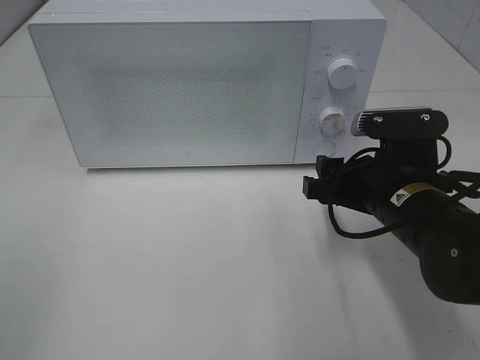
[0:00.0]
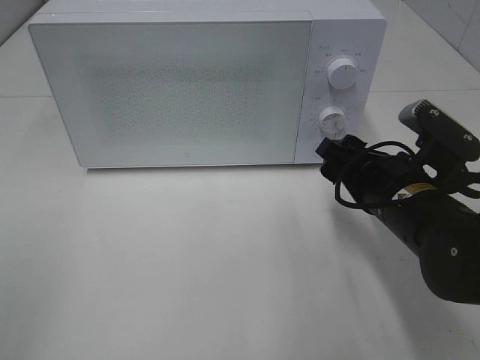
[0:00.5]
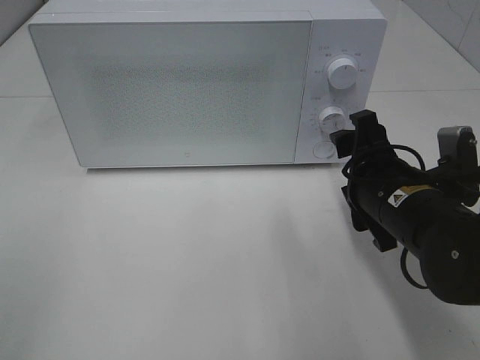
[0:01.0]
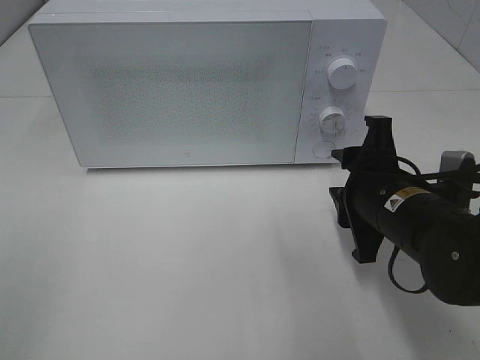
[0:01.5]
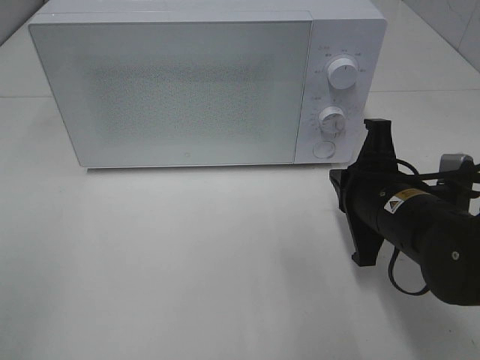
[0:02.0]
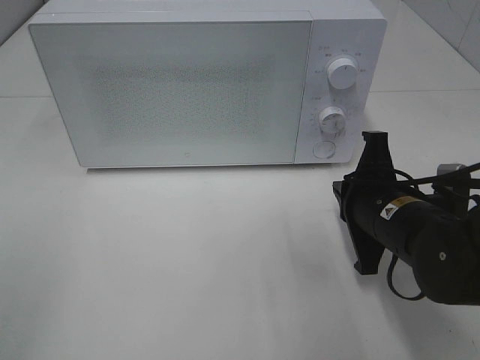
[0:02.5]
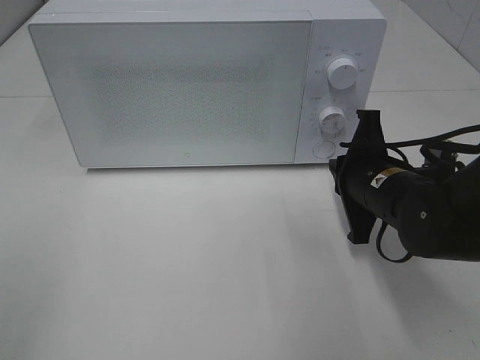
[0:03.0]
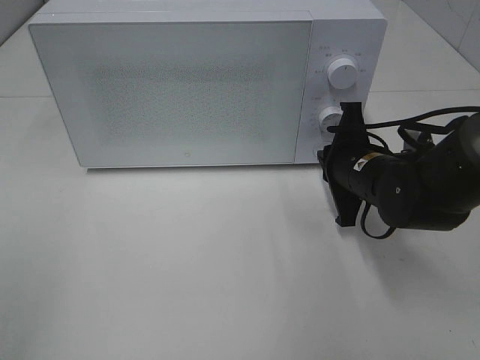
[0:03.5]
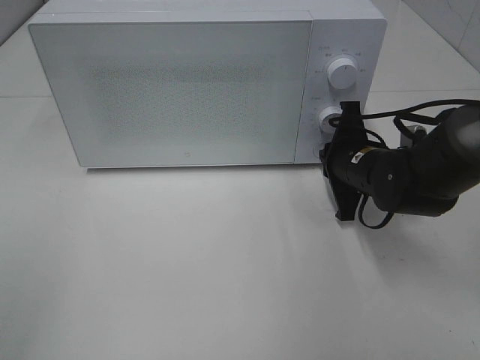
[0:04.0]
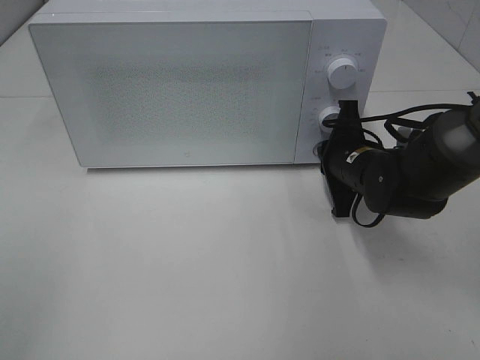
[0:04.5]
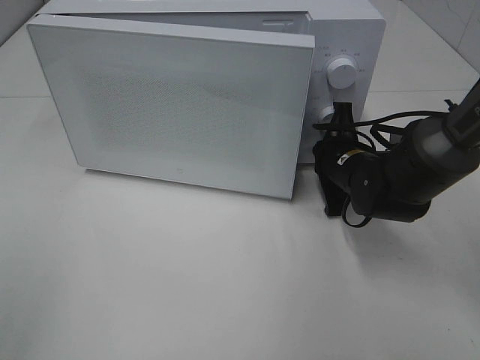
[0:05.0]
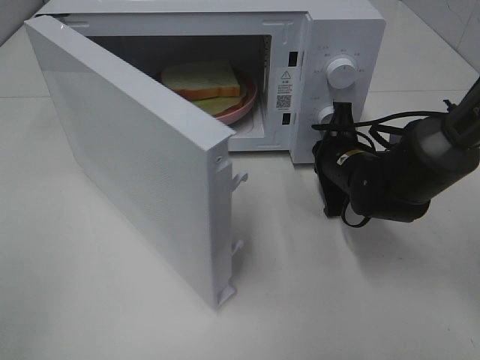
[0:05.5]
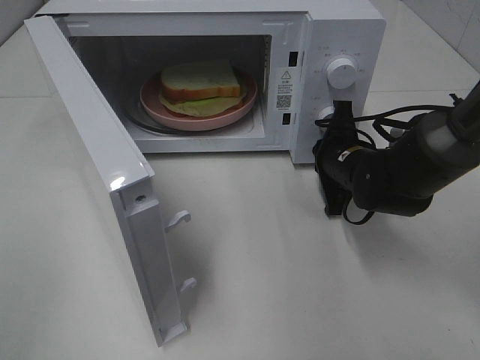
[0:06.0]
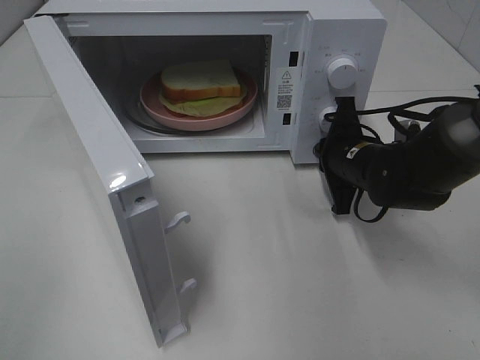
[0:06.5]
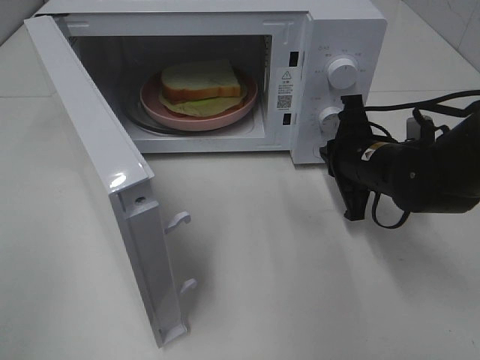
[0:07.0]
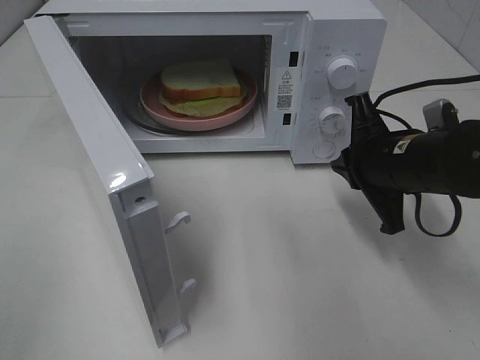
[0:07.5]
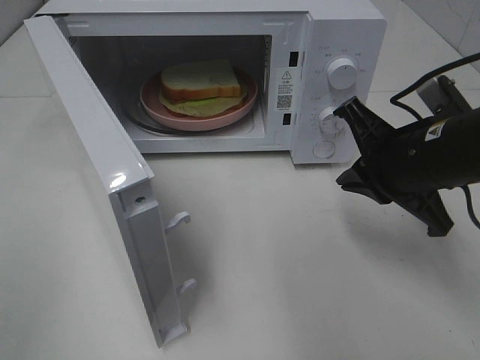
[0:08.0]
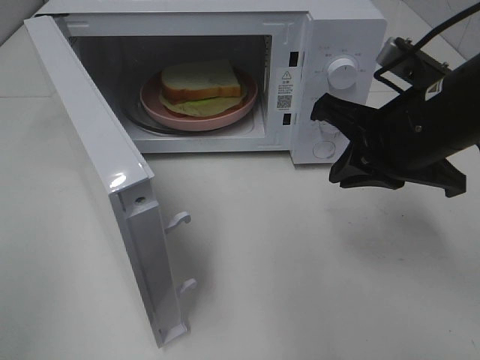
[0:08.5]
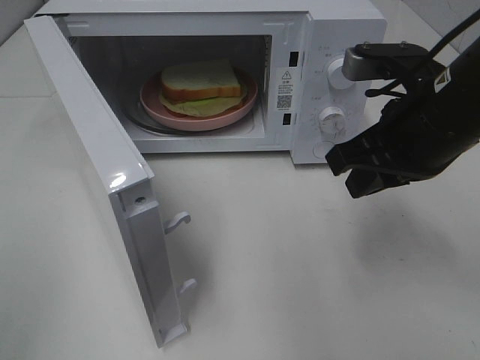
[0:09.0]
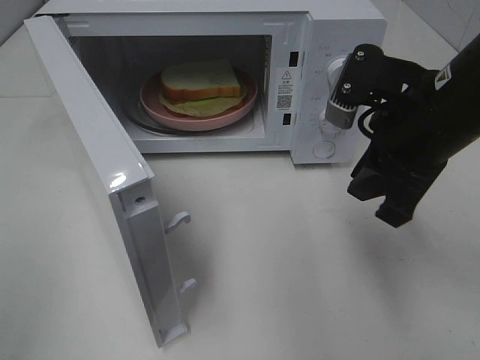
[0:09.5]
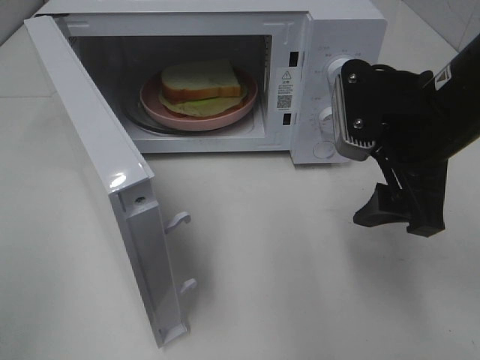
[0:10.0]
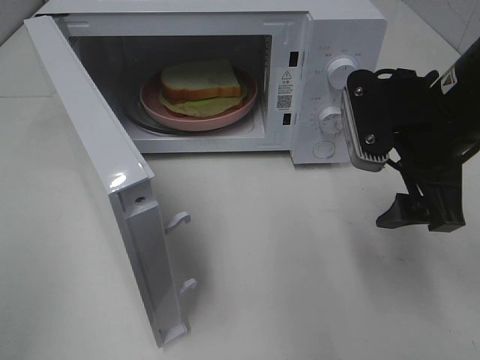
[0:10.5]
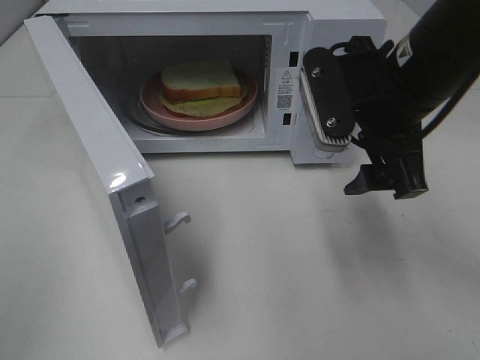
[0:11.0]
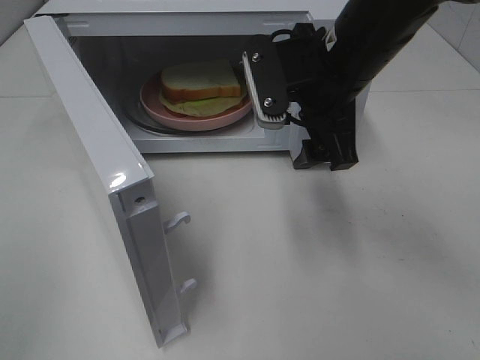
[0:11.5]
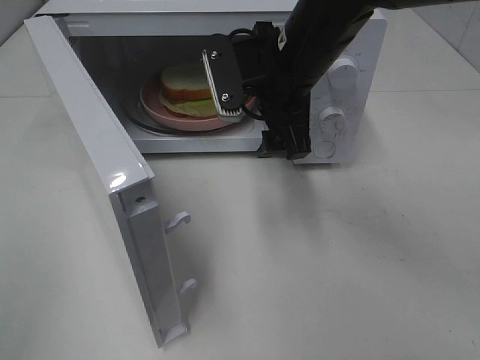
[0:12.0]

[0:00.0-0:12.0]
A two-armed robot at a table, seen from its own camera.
Task of the whole recording: Heat Sandwich.
Step, 0:00.0 to 0:07.0: Right hand: press the switch.
0:00.0 to 0:02.0: The right gripper closes.
0:02.0 to 0:04.0: The right gripper goes about 10 cm forward.
0:06.0 to 0:08.0: The right gripper is displaced backward and upward by roughly 15 cm.
0:08.0 to 0:10.0: The right gripper opens.
0:10.0 to 0:12.0: The right gripper moves to the left and forward, some 15 cm.

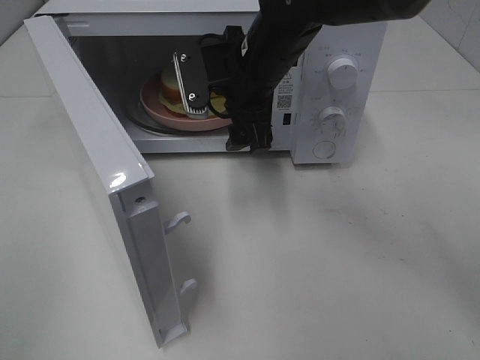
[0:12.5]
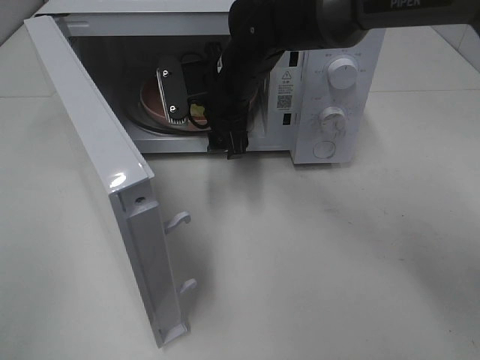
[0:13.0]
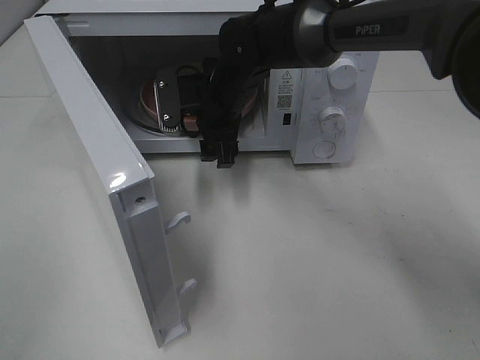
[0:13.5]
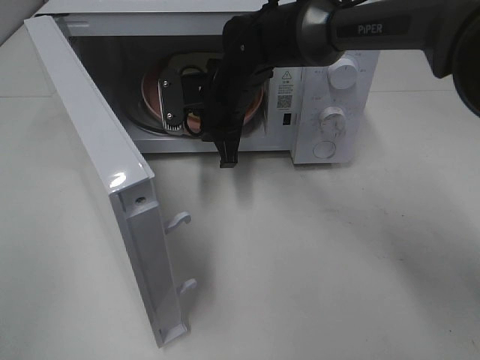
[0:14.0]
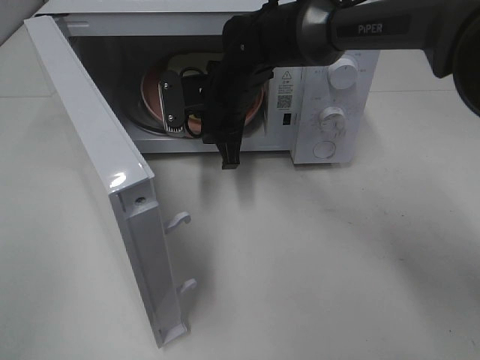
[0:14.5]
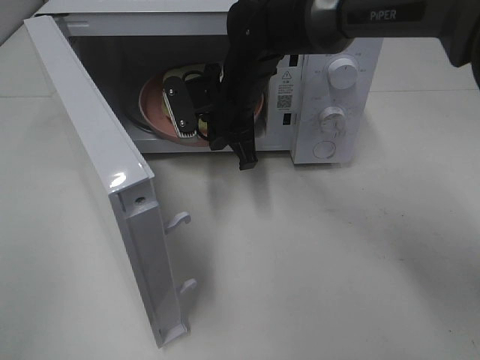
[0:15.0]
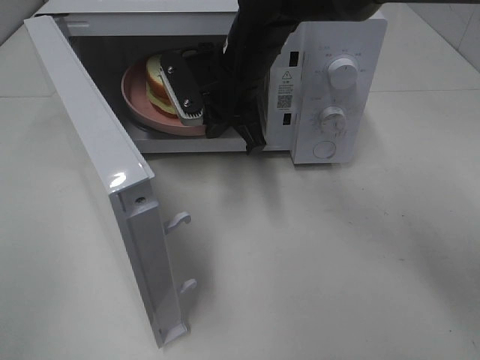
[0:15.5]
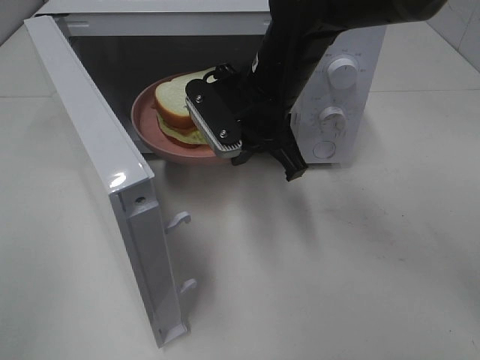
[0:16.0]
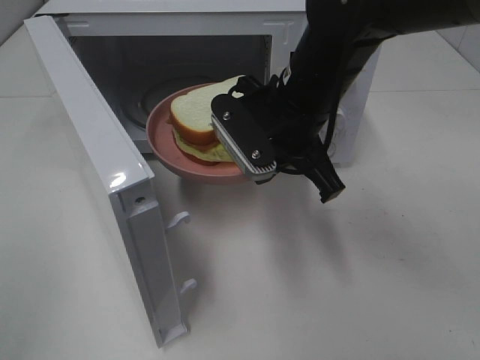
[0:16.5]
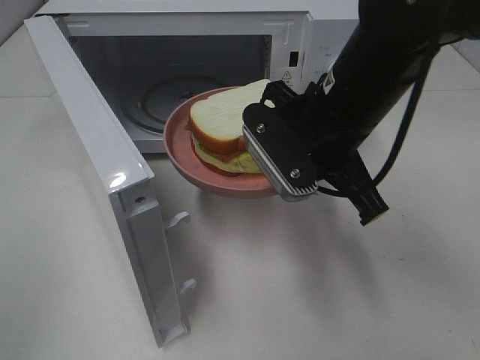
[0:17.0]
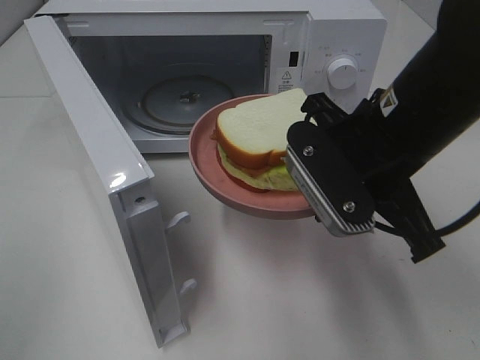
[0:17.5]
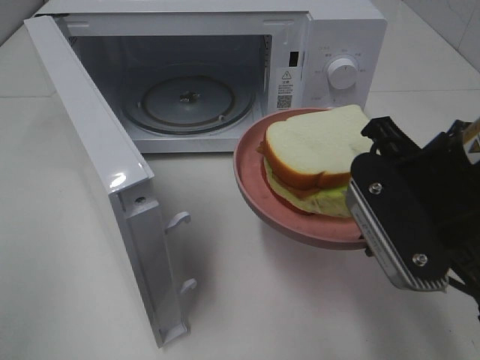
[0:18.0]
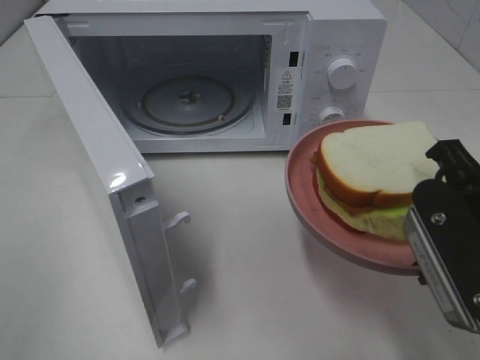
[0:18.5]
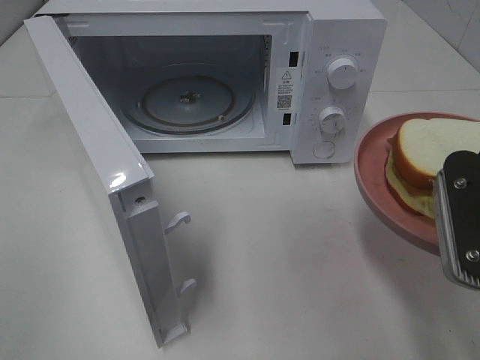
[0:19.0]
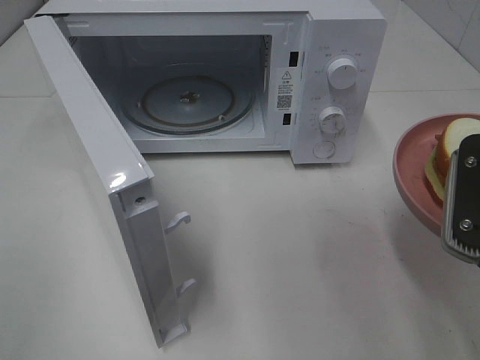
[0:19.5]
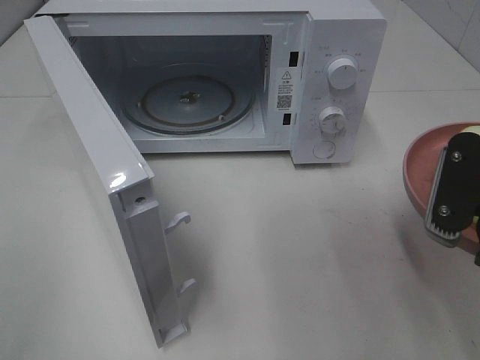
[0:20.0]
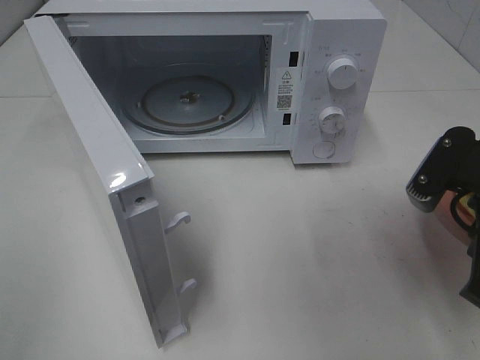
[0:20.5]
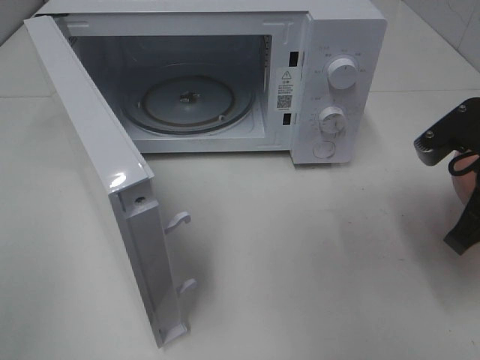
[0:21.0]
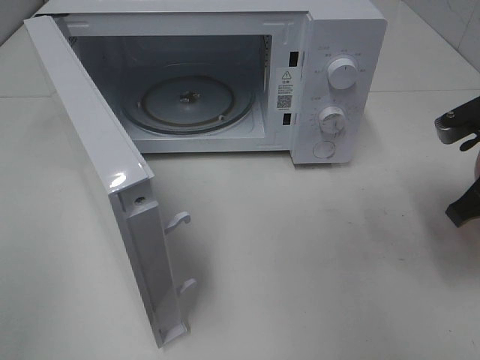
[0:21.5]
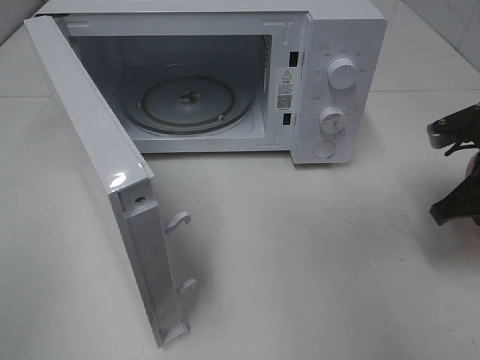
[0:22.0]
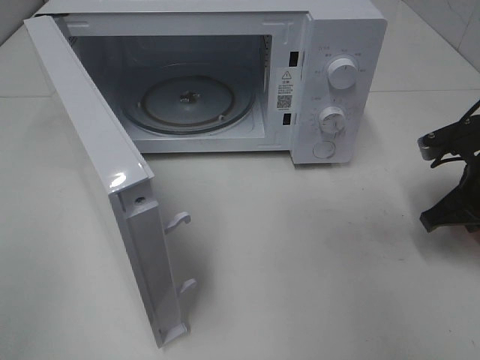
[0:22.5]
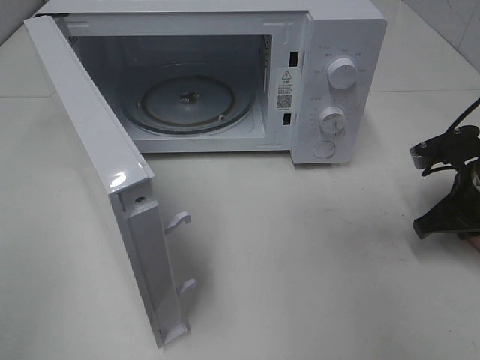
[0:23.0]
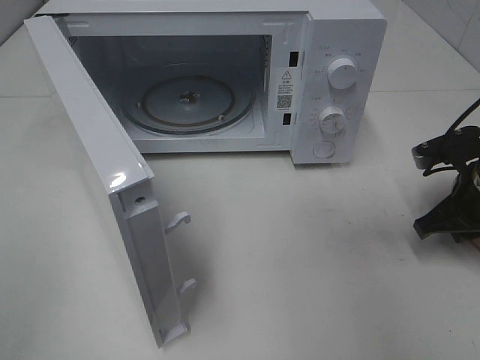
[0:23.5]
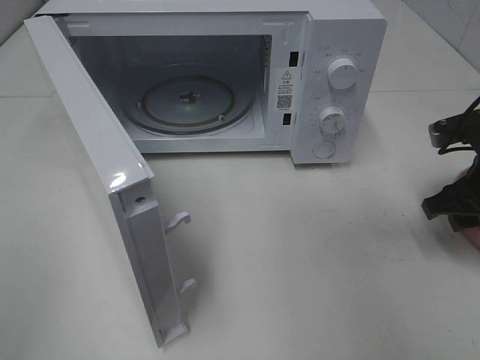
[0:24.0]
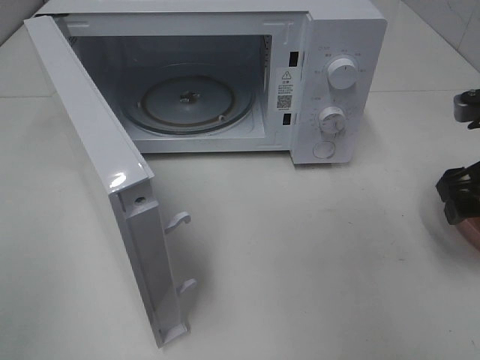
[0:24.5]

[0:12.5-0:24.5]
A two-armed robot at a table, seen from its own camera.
Task of the whole recording: Heat Sandwich.
Step, 0:14.0 to 0:24.5: Right hand: place the plate on the table.
0:12.5 to 0:14.5: The right gripper heads downward, covering about 5 cm, and closes.
0:14.5 to 0:16.5: The right gripper heads backward, to the right and upward, covering approximately 15 cm.
0:16.5 to 0:18.5: The right gripper moves backward and to the right, roughly 20 cm.
0:18.5 to 0:20.5: The right gripper changes place by approximately 5 cm.
0:20.5 to 0:22.5: The right gripper travels forward, downward and to the right by roughly 15 cm.
0:22.5 to 0:24.5: The right gripper heads upward, covering approximately 5 cm, and opens up.

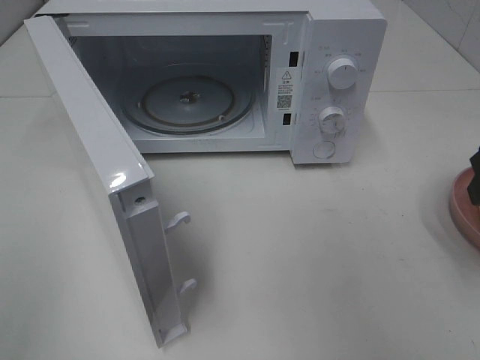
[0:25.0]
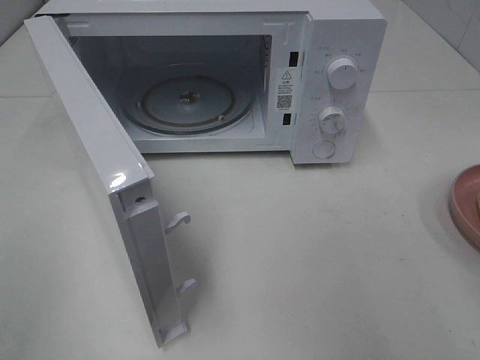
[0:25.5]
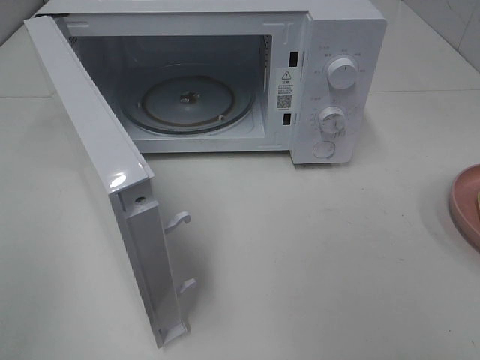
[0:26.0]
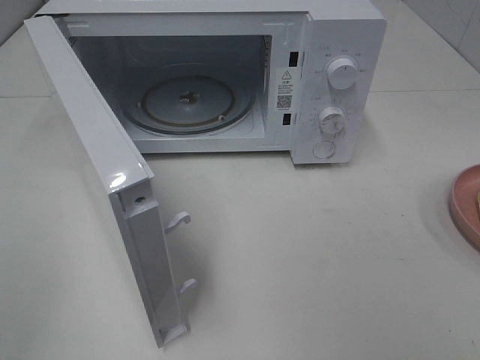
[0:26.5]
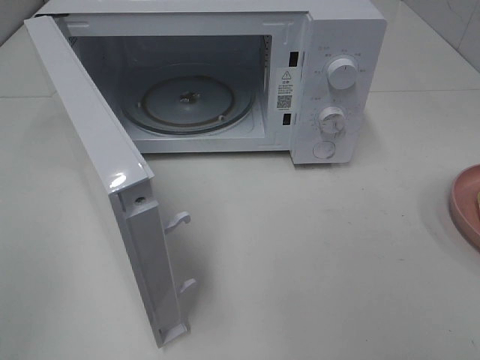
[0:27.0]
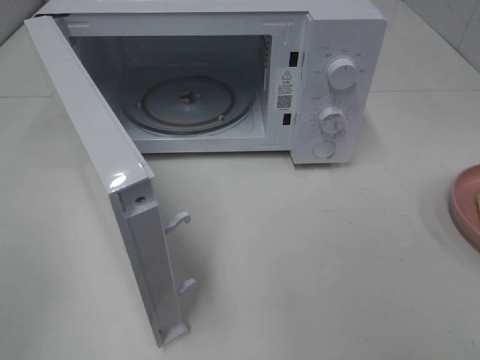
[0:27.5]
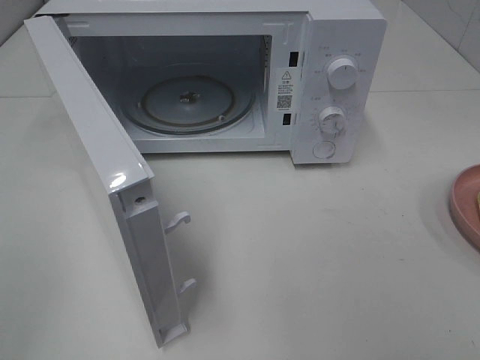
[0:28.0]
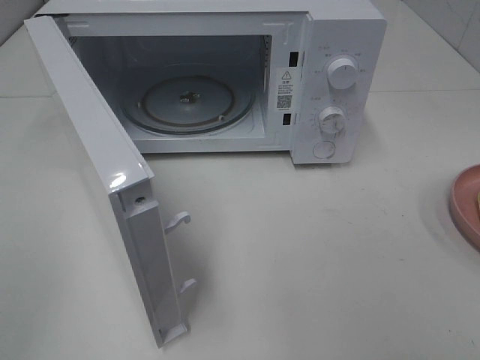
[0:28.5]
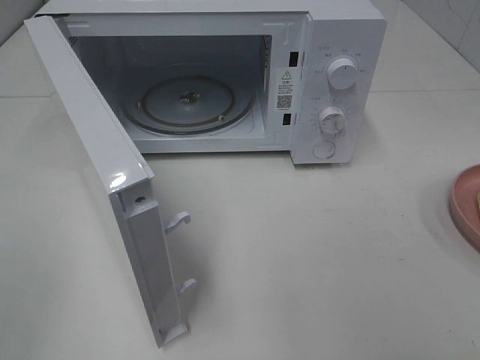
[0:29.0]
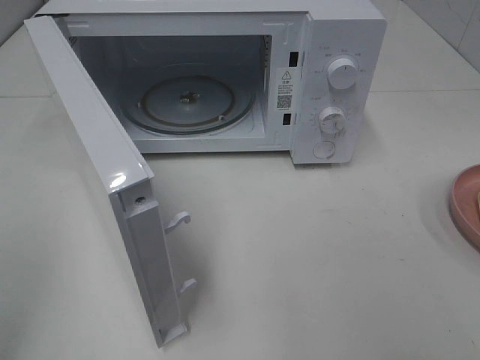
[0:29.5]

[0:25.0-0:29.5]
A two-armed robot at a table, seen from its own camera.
Task of the whole recording: Heat Sandwich.
0:25.0 to 0:27.0: The right gripper goes approximately 20 cm backward.
